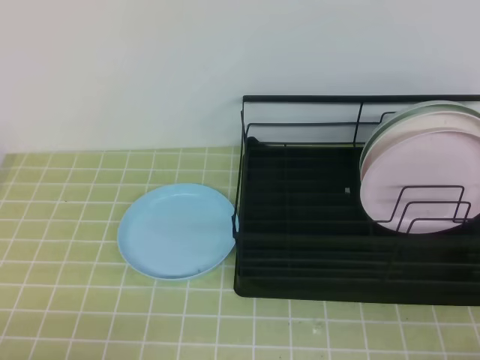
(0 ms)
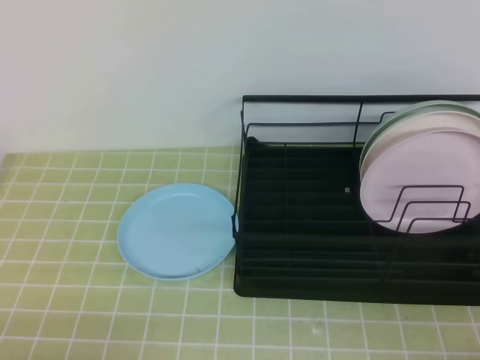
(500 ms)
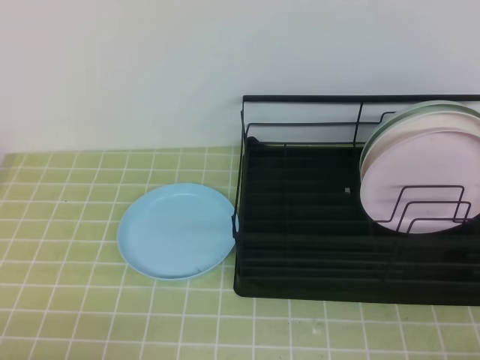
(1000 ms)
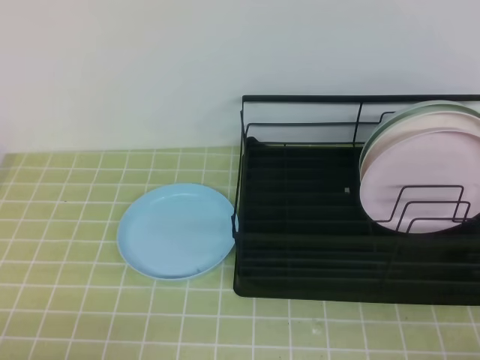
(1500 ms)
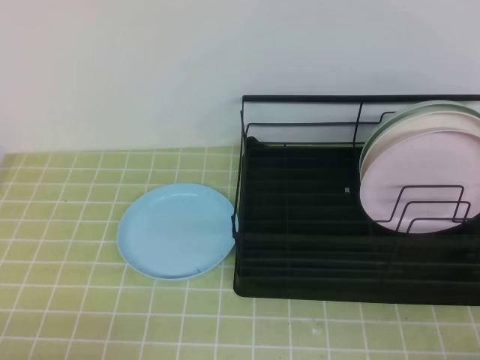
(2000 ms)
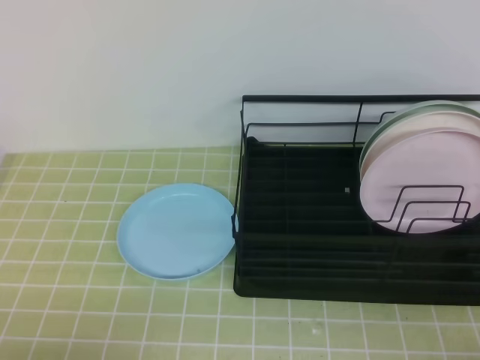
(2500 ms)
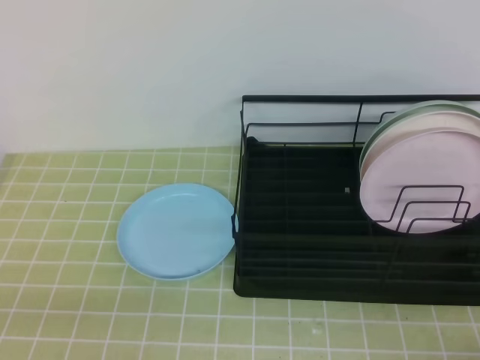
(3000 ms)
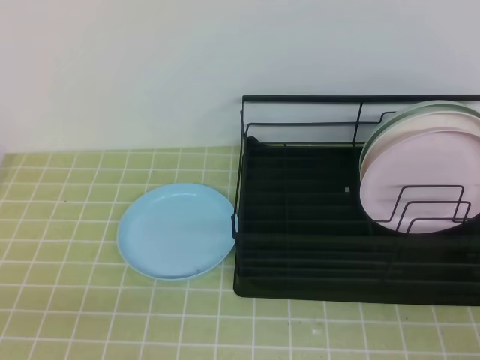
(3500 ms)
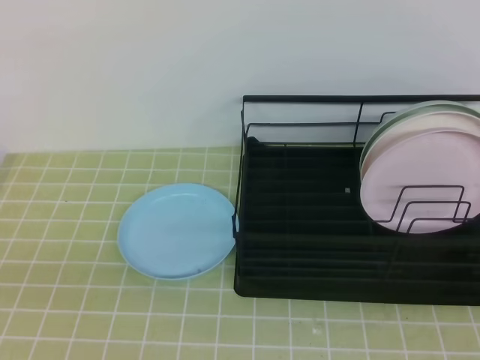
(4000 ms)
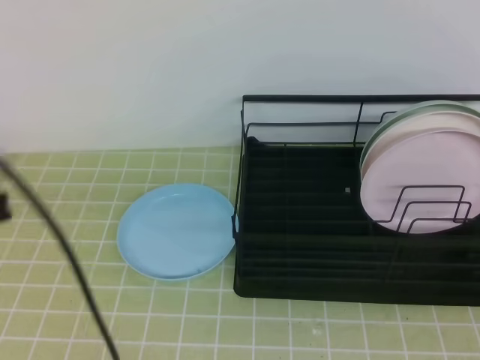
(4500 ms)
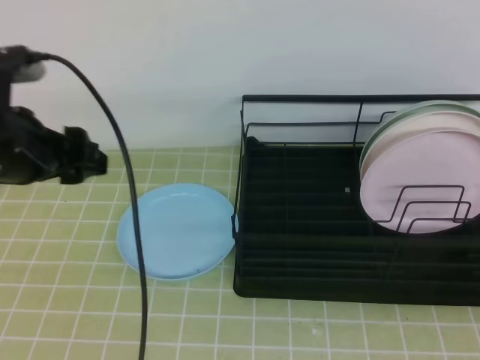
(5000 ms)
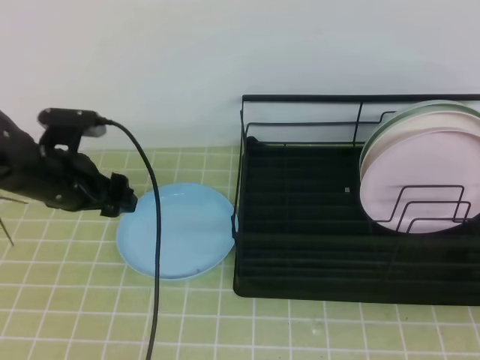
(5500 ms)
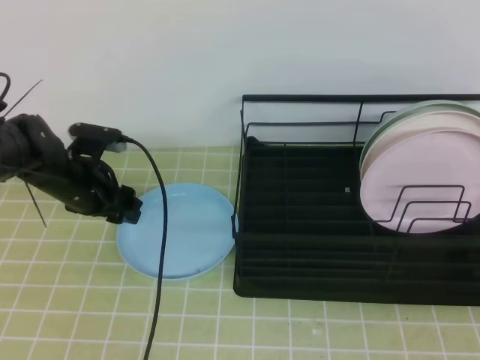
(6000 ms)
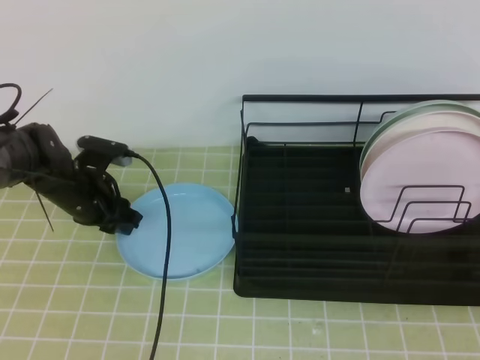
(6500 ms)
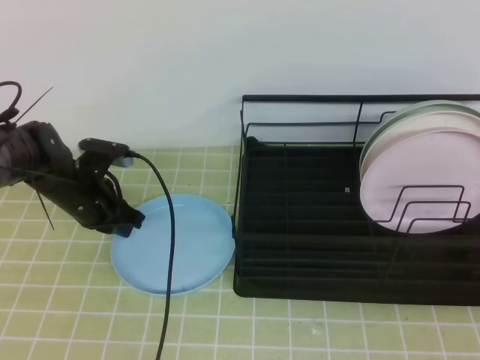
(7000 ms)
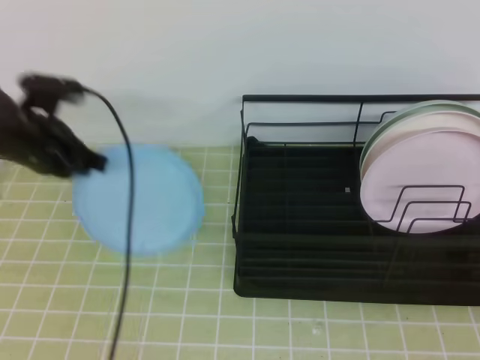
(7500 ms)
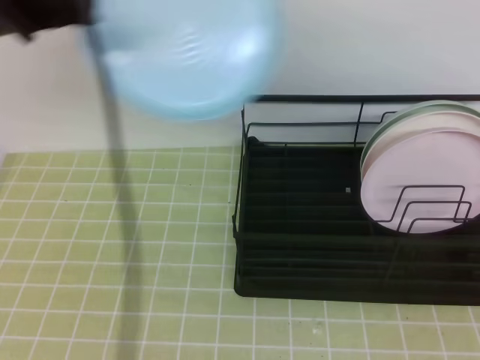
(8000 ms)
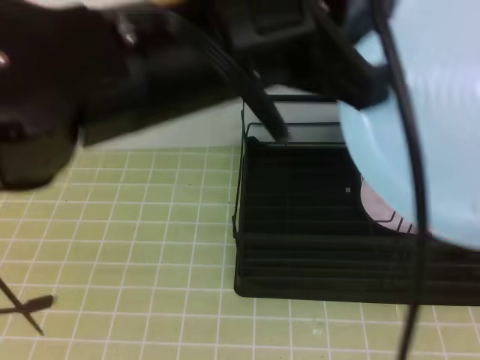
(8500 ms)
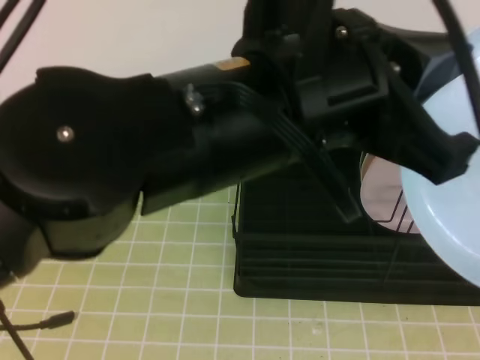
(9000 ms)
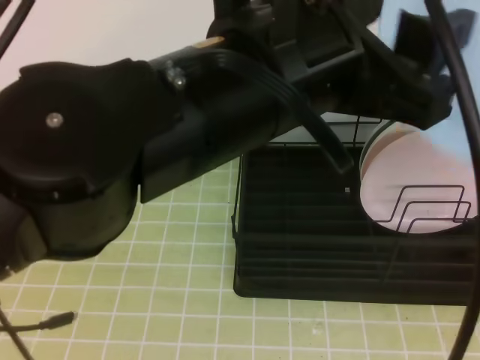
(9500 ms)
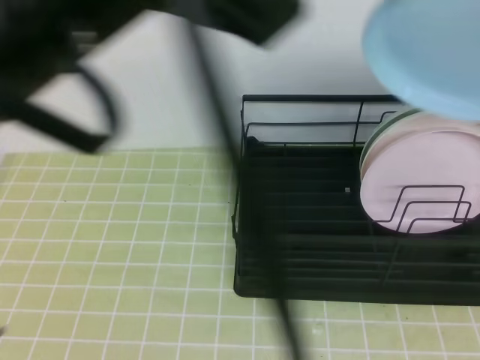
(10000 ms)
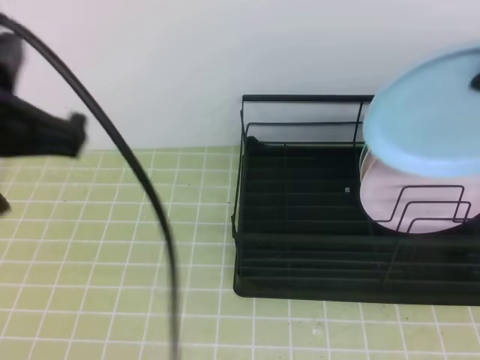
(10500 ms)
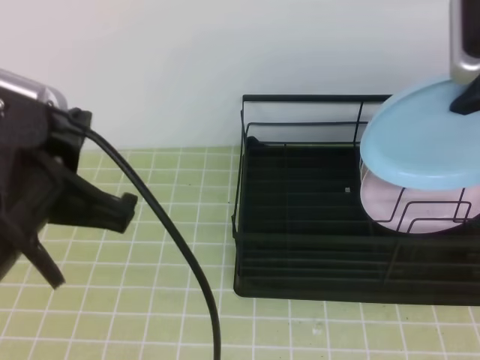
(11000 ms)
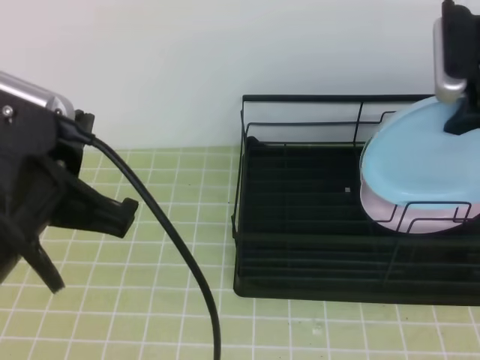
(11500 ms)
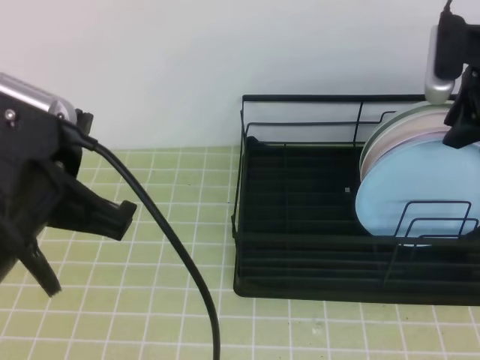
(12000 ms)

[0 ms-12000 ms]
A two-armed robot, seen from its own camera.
0 ms to 2000 ms: Neither gripper changes place.
4000 ms to 6000 ms: The left gripper goes approximately 35 cm forward, and opens up.
6000 ms to 8000 ms: The right gripper heads upward, covering some 5 cm. Meanwhile the left gripper travels upward and backward by approximately 25 cm, and closes.
8000 ms to 10000 ms: The left gripper is displaced backward and to the right by some 15 cm, and opens; the right gripper heads forward and upward, covering about 25 cm, and opens and closes again.
10000 ms to 12000 ms: The right gripper goes about 20 cm forward and downward. Meanwhile the left gripper is displaced downward by some 15 cm, and closes its fingers.

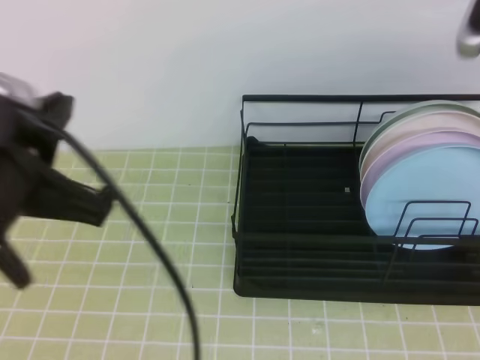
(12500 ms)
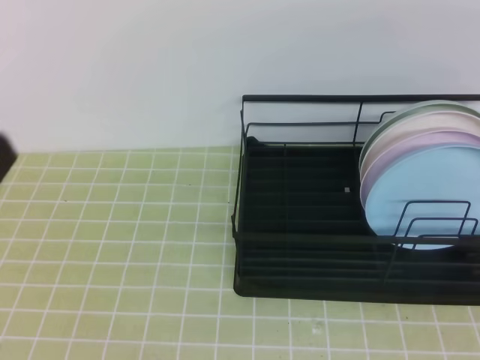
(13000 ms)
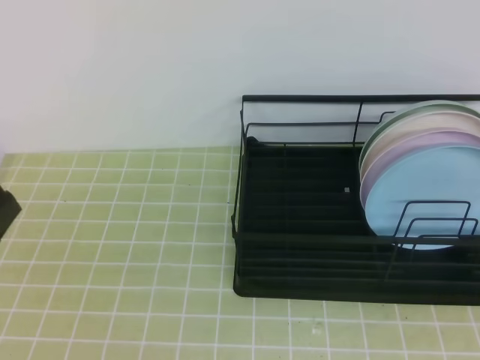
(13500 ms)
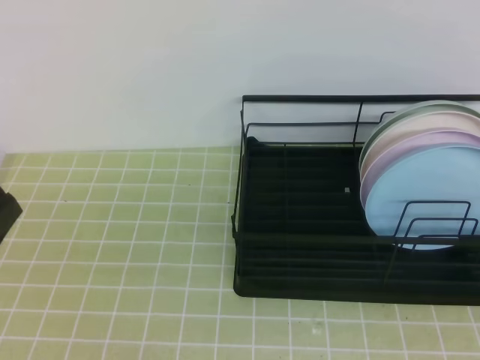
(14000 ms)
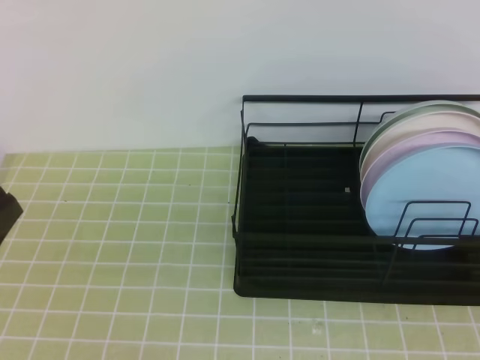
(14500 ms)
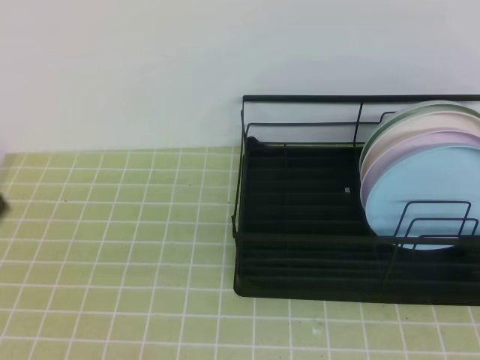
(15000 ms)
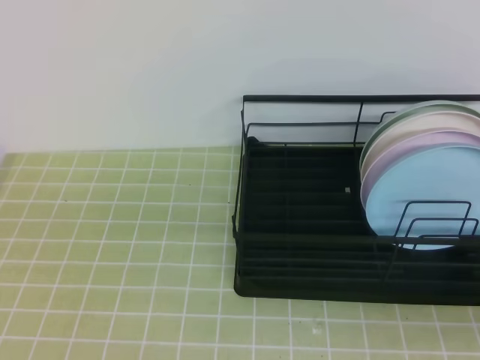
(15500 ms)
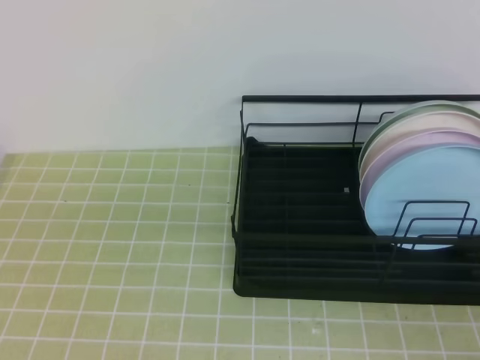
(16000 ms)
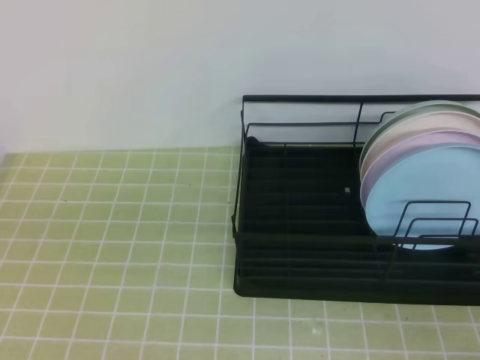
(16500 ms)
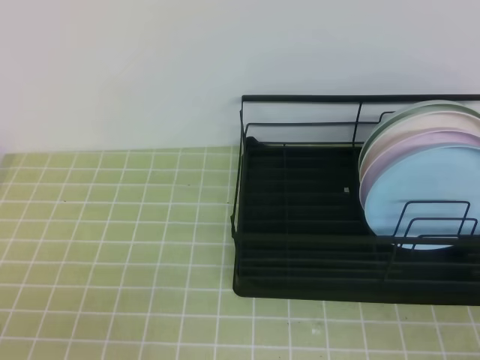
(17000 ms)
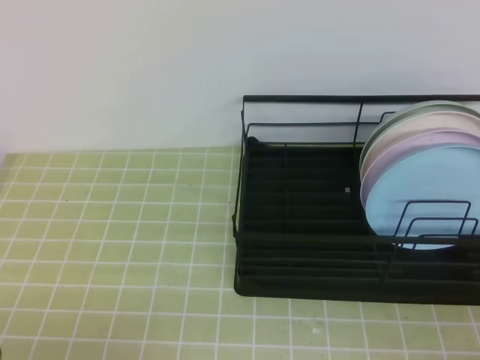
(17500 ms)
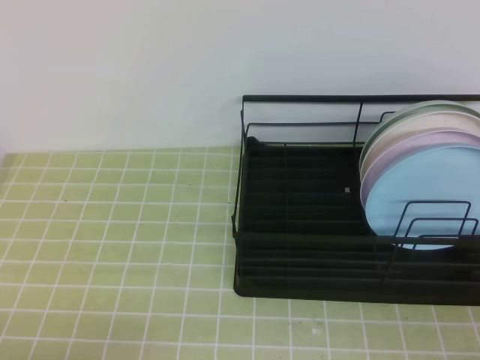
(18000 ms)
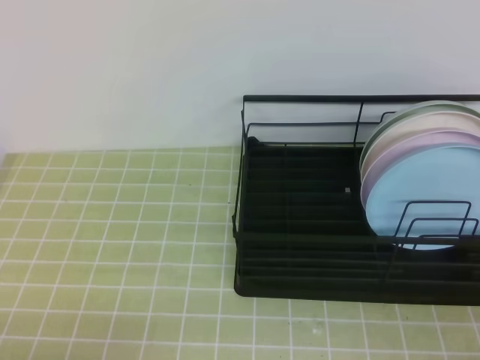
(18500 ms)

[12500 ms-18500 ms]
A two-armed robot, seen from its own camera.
12500 ms to 14500 ms: The right gripper goes about 30 cm backward, and closes. The left gripper moves backward, roughly 5 cm.
